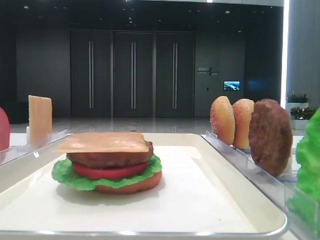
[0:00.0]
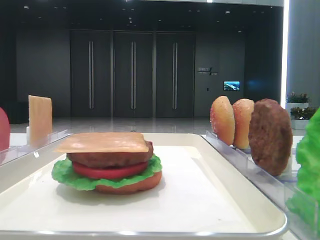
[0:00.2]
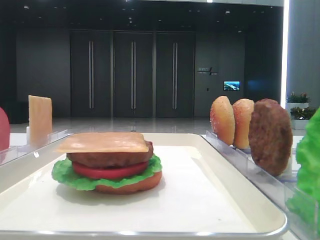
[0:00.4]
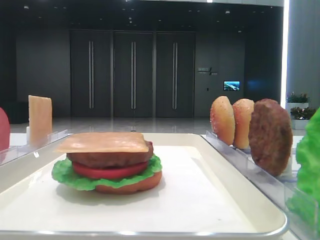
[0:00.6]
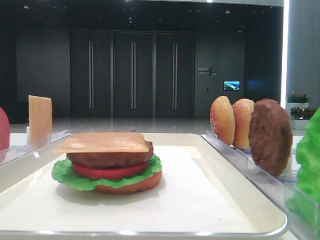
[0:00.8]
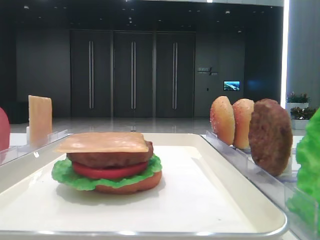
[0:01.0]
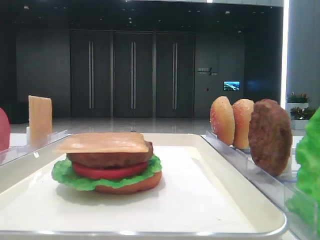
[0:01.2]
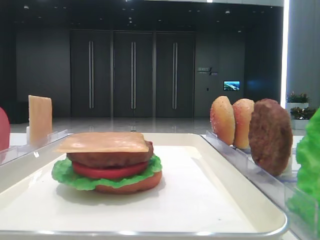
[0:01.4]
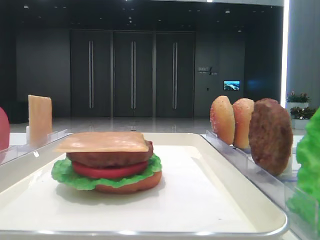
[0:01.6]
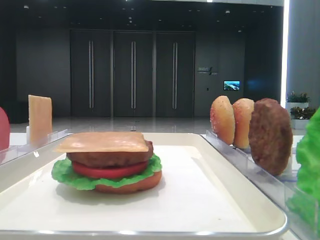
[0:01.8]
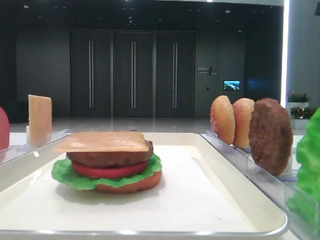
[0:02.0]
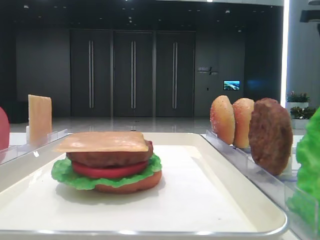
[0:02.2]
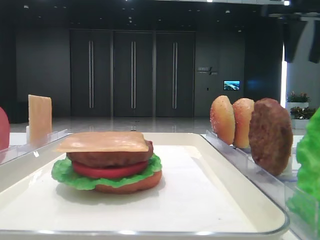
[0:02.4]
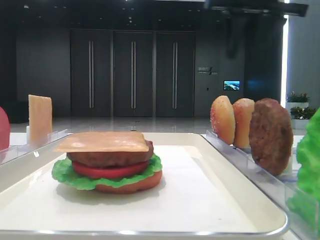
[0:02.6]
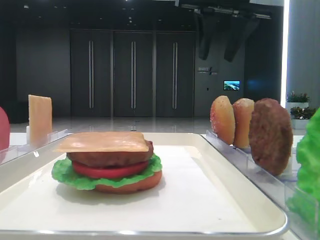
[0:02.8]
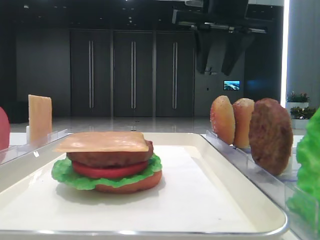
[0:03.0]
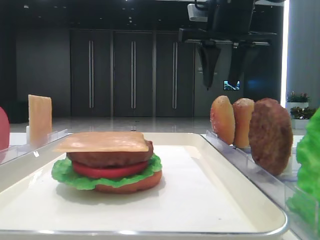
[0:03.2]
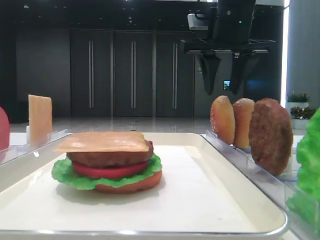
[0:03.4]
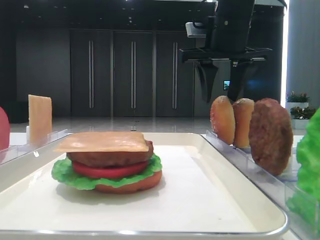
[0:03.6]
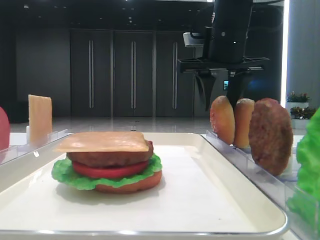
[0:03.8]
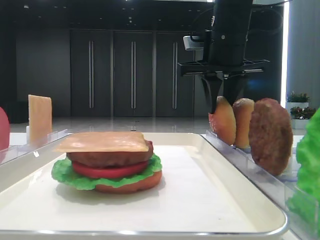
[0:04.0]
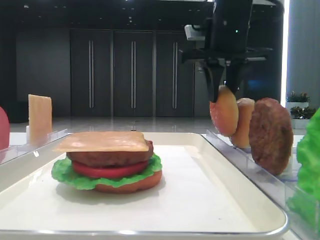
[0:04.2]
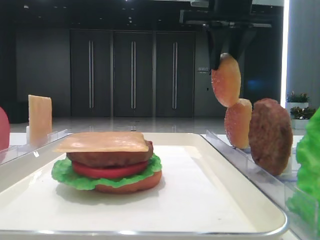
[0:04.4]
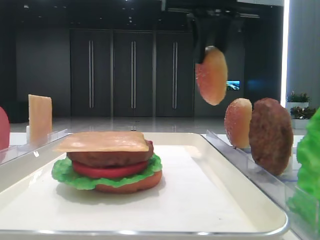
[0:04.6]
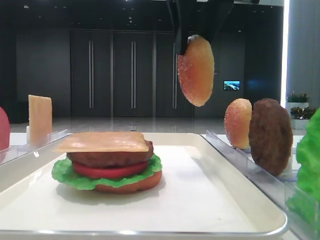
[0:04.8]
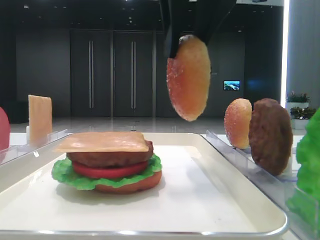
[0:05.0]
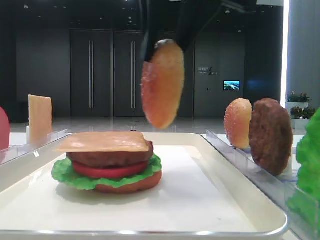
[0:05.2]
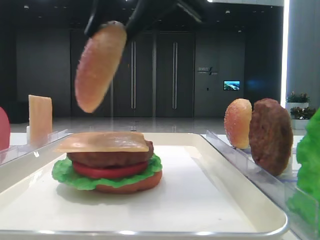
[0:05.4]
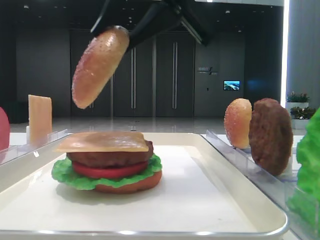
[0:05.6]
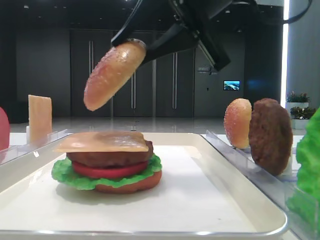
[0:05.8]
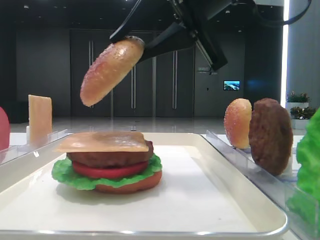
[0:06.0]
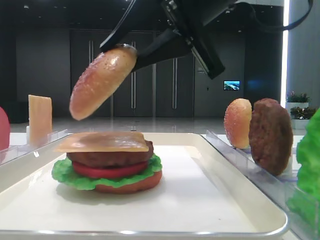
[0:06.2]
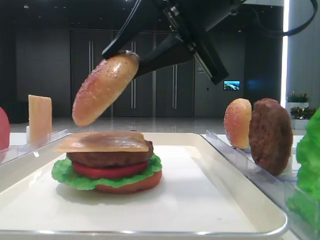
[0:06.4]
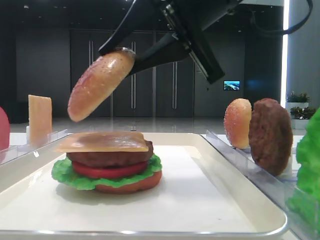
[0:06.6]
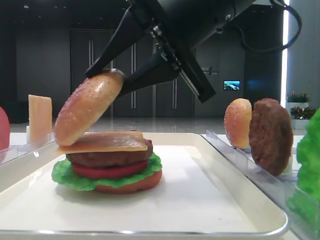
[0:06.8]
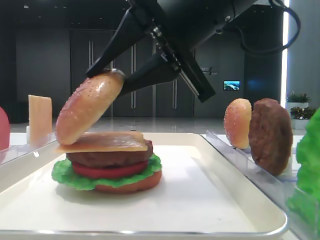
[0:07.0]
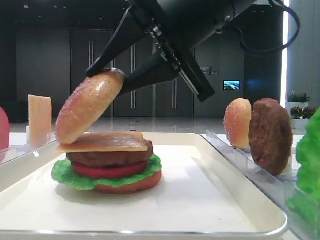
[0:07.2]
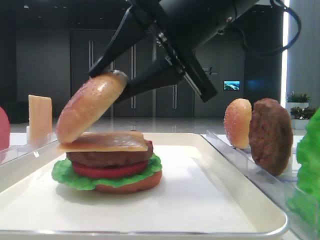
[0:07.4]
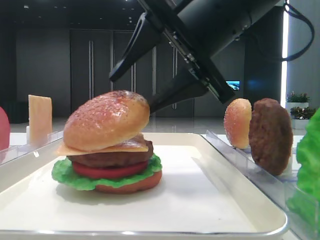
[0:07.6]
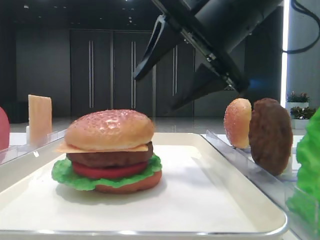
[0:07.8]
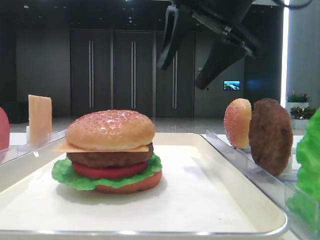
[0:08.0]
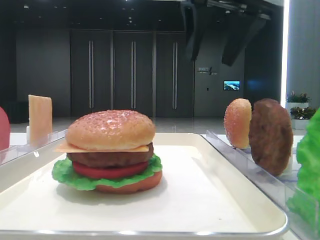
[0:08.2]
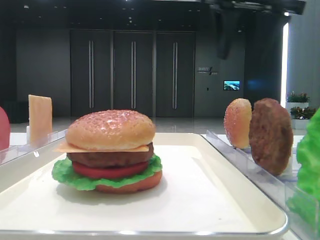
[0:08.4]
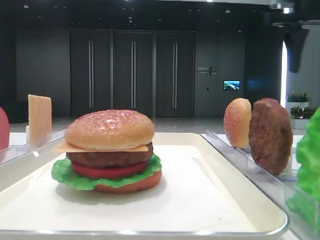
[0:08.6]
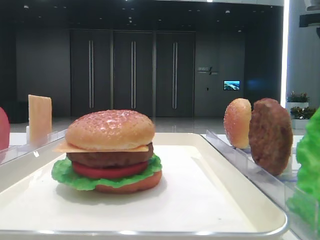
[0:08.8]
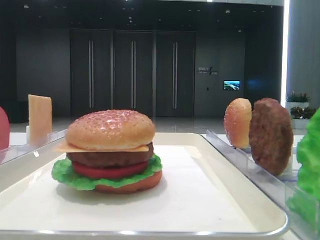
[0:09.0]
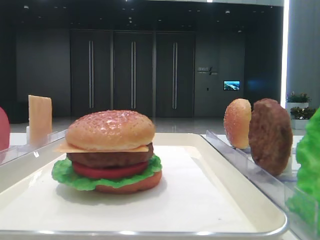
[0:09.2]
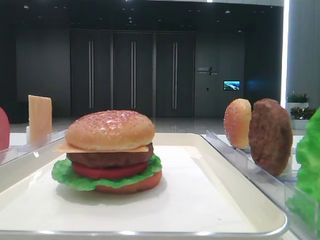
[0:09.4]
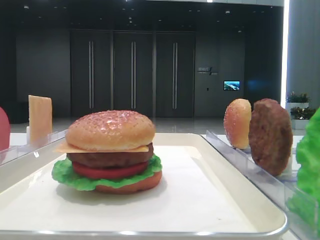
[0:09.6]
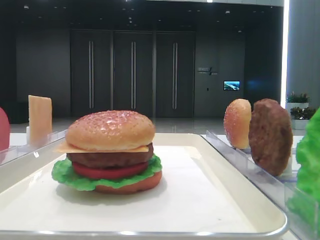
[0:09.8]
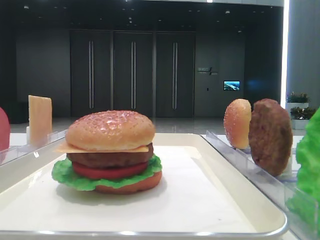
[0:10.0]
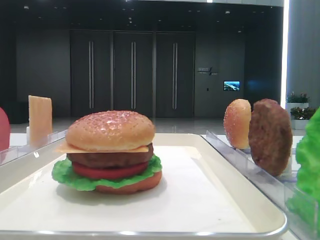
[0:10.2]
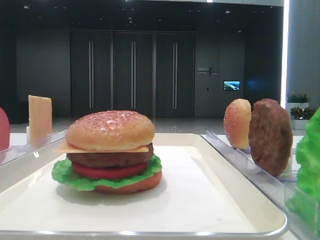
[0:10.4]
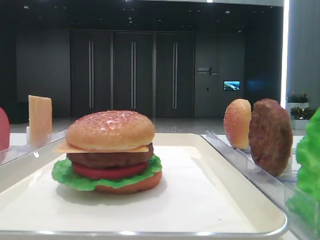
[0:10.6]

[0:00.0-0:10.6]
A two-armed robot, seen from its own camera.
0:01.6 to 0:03.0: The right gripper travels to the left and forward by roughly 25 cm.
0:03.0 to 0:04.6: The right gripper moves some 5 cm downward and comes back, and closes up.
0:04.6 to 0:06.0: The right gripper shifts roughly 10 cm backward and downward.
0:06.0 to 0:07.6: The right gripper opens its fingers.
0:07.6 to 0:09.0: The right gripper is displaced to the right by about 20 cm.
0:09.0 to 0:10.6: The right gripper is displaced backward by some 30 cm.

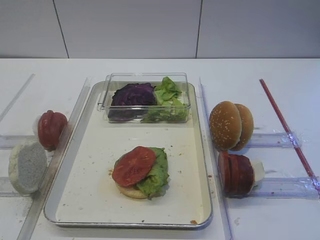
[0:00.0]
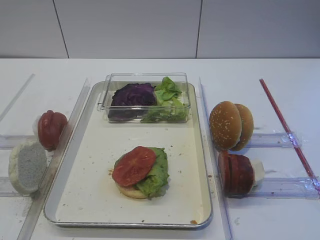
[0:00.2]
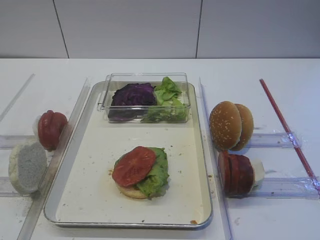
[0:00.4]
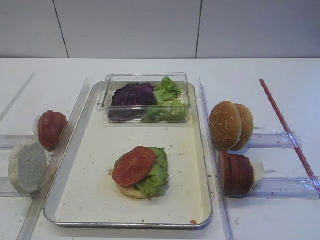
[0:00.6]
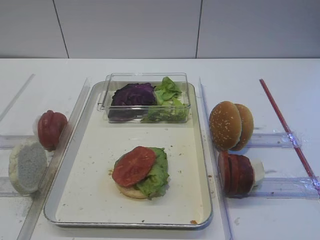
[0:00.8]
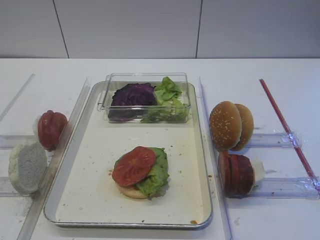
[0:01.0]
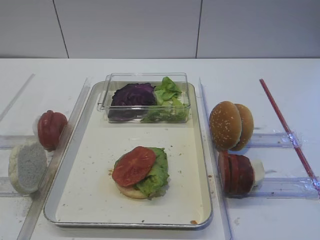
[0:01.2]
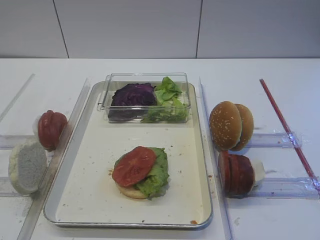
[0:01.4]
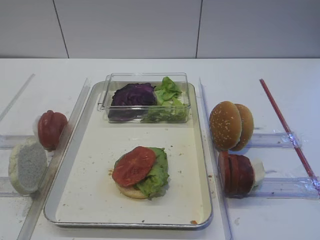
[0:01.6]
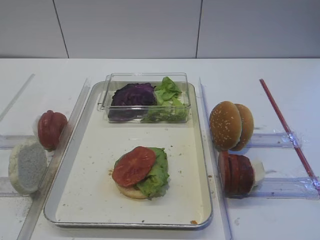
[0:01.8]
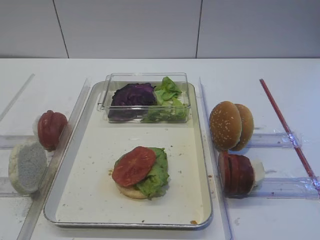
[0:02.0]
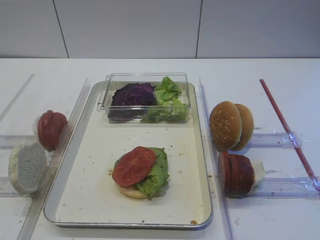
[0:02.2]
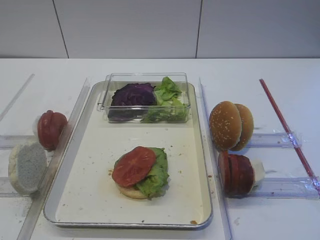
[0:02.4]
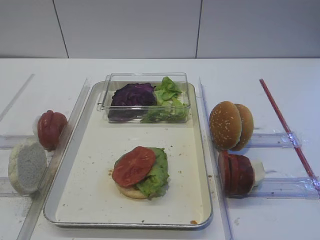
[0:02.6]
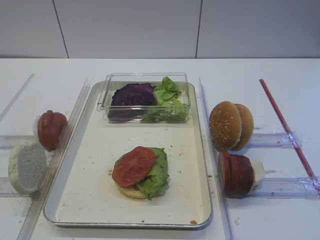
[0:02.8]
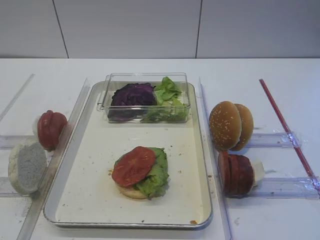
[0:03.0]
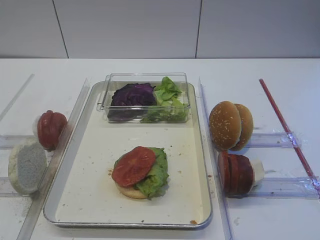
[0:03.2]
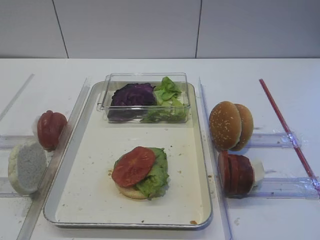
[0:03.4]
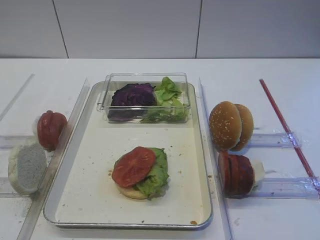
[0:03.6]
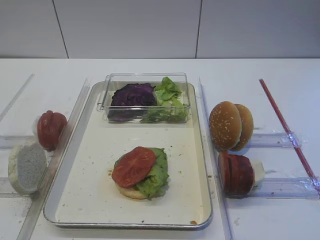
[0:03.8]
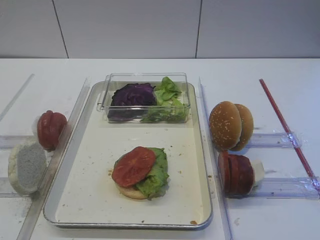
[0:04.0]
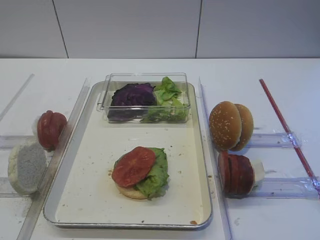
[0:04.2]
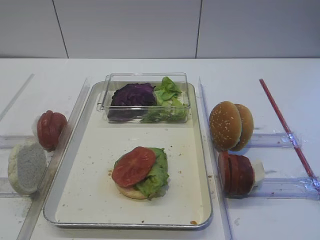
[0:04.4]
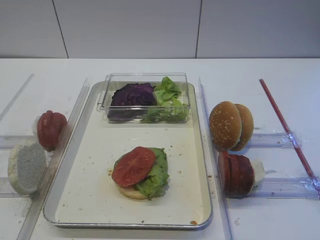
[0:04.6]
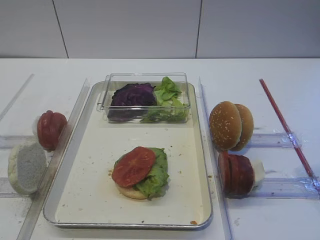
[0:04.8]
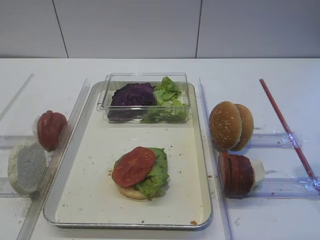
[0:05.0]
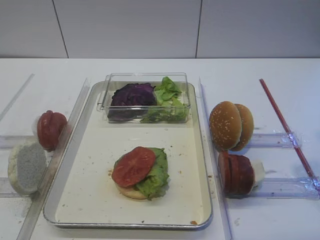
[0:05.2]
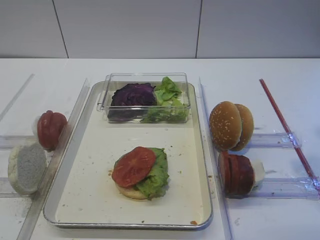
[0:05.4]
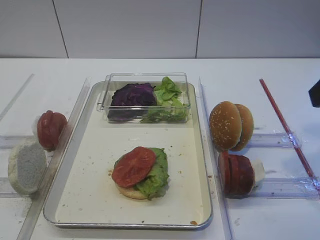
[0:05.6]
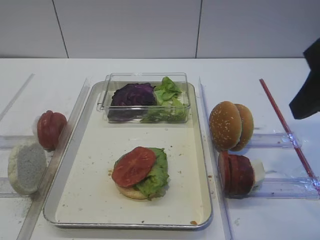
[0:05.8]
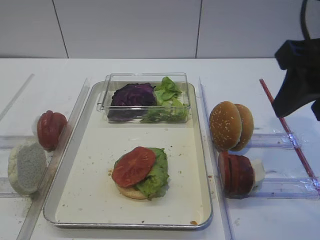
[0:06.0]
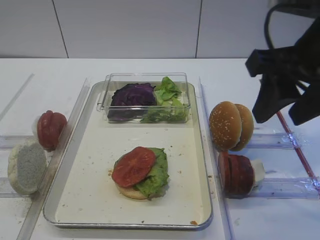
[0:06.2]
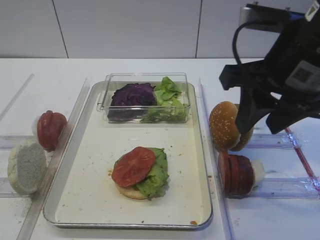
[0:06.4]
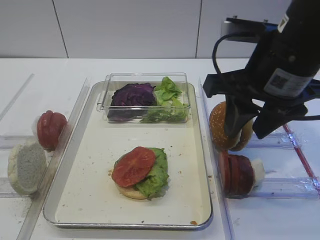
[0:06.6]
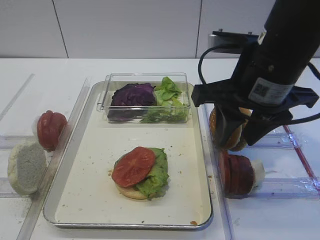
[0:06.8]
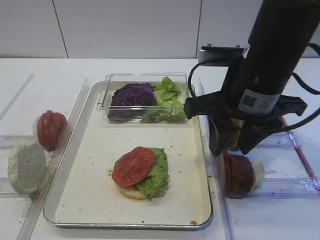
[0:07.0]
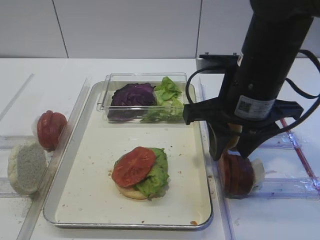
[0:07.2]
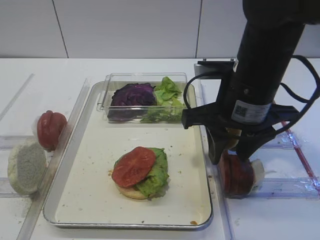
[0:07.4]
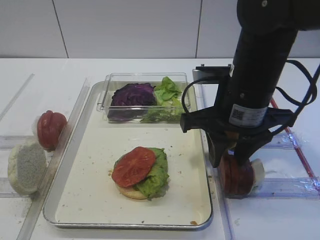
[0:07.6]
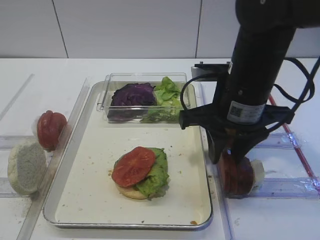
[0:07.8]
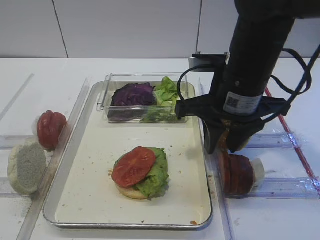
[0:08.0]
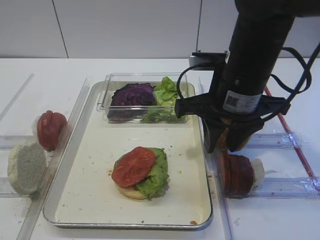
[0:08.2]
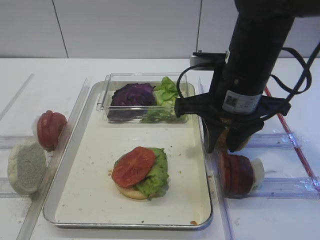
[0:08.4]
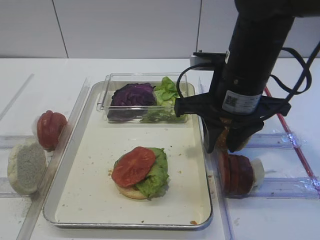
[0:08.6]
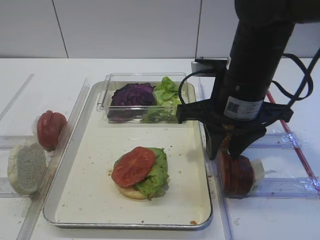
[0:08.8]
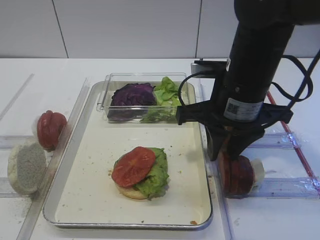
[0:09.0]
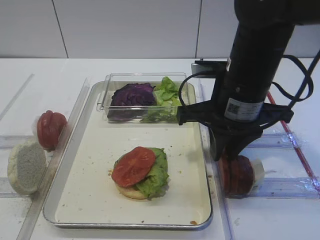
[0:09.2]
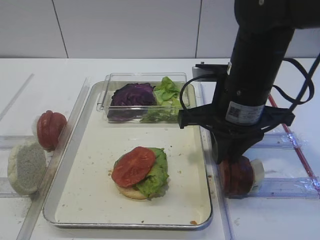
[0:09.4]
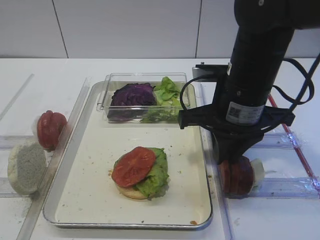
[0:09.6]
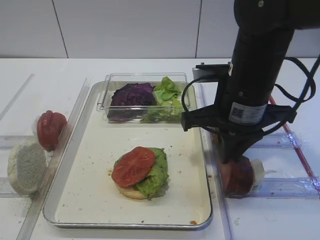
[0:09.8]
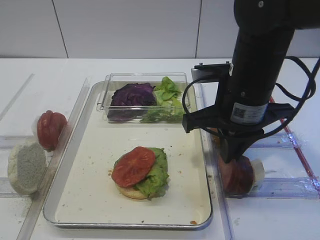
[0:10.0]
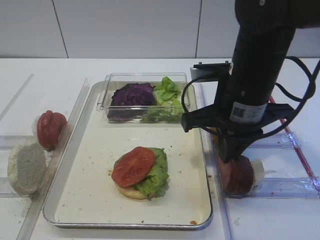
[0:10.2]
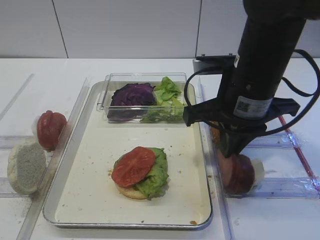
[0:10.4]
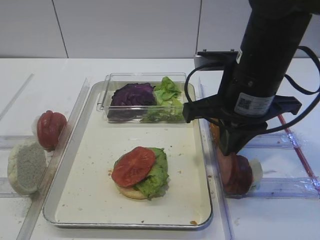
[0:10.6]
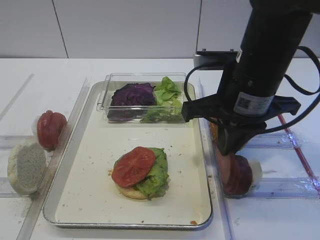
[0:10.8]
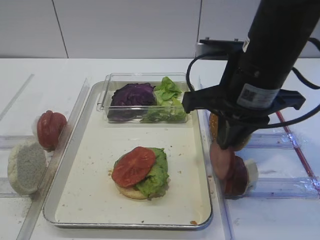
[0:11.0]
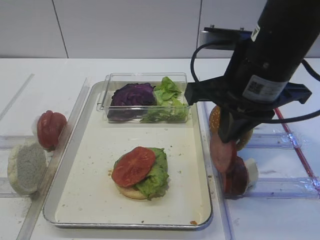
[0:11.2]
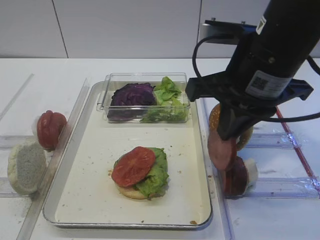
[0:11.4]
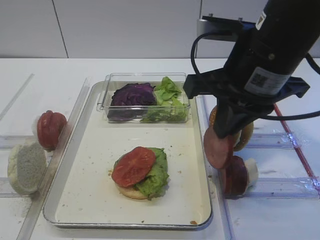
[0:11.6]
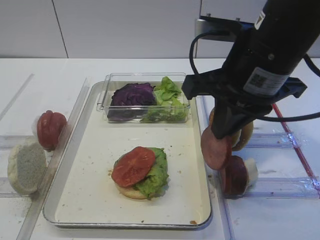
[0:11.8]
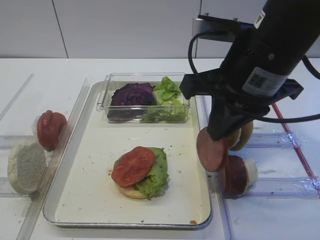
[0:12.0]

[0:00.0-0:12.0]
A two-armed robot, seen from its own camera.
Step, 0:00.0 to 0:11.4: Pick up the cutlet with the right gripper.
0:04.4 to 0:06.0: The right gripper moves forward, about 10 cm.
0:06.0 to 0:07.6: The right gripper heads downward, to the left and forward, covering some 15 cm.
0:07.6 to 0:09.0: The grippers move only a little.
0:09.0 to 0:10.4: The right gripper closes.
0:10.4 to 0:12.0: The right gripper is displaced upward by roughly 5 cm.
